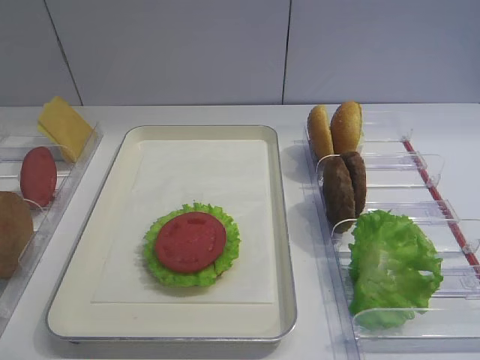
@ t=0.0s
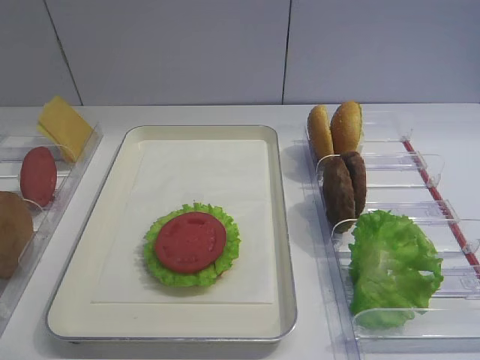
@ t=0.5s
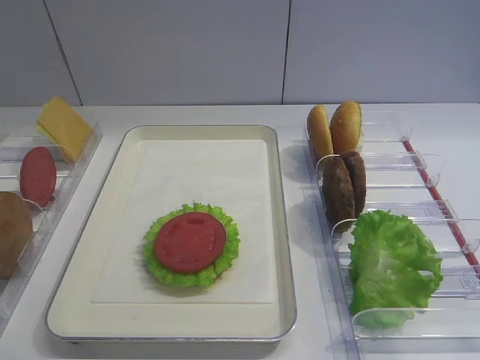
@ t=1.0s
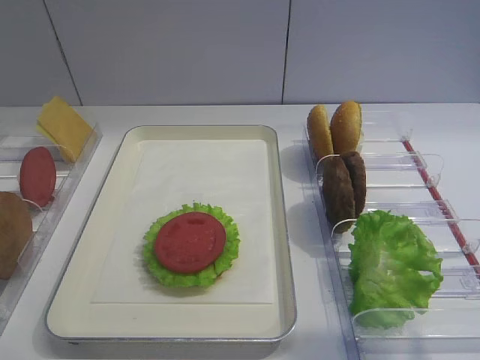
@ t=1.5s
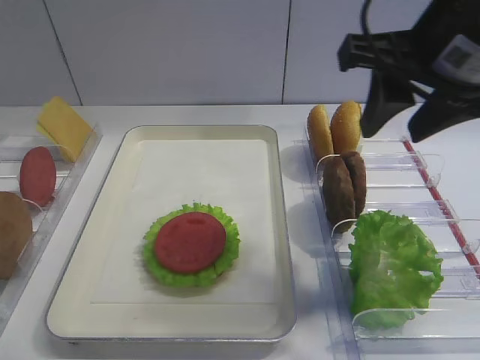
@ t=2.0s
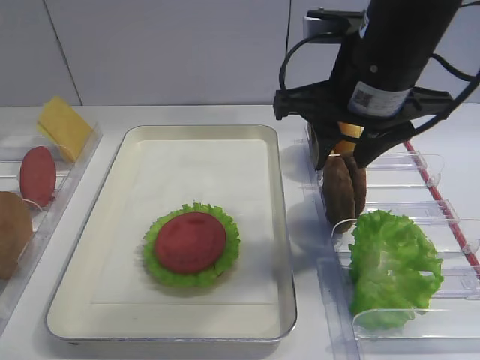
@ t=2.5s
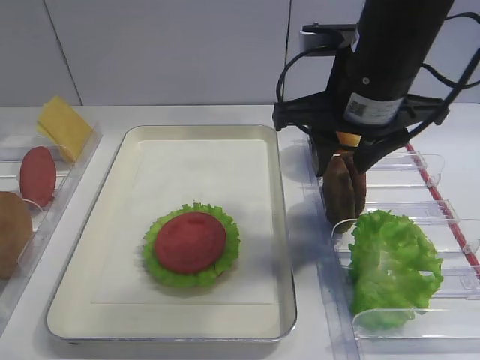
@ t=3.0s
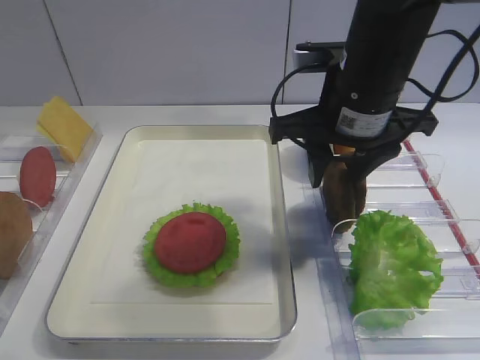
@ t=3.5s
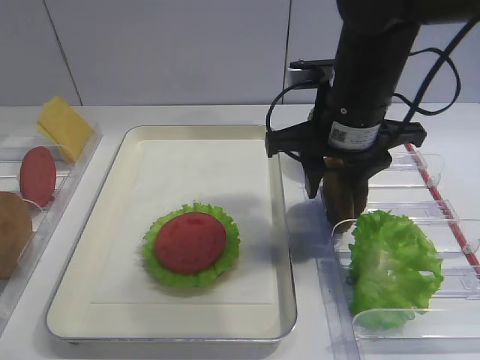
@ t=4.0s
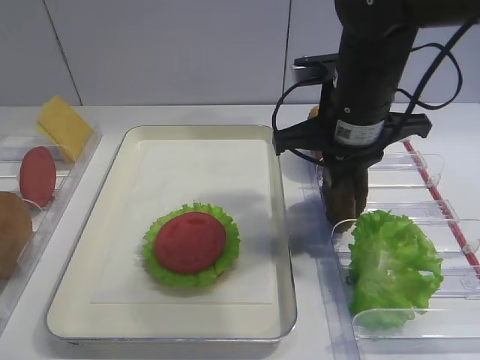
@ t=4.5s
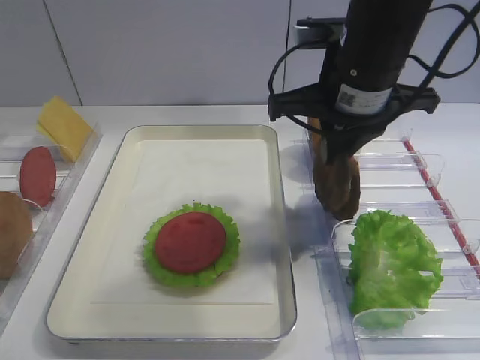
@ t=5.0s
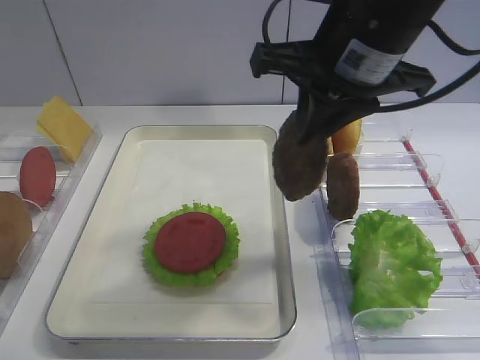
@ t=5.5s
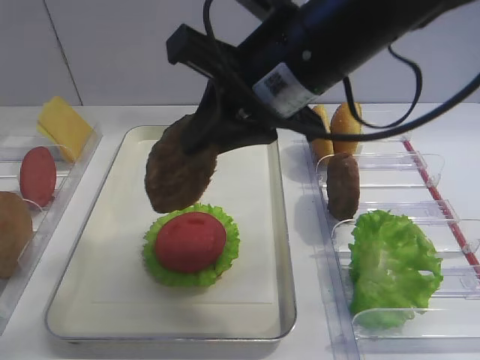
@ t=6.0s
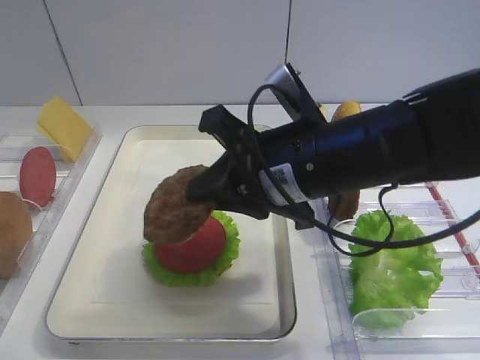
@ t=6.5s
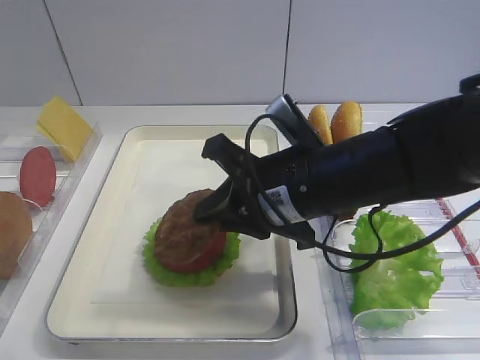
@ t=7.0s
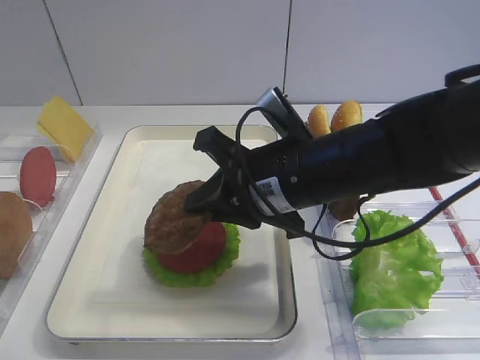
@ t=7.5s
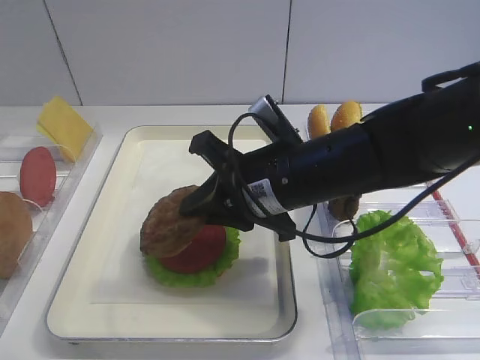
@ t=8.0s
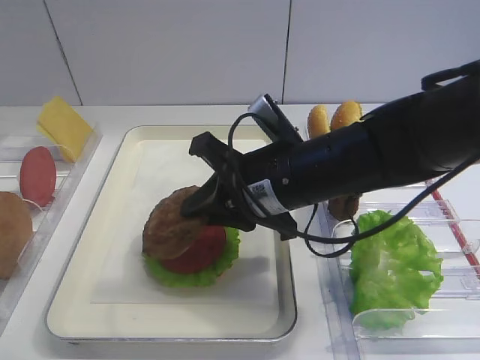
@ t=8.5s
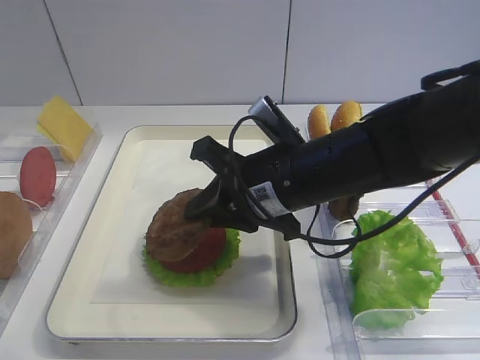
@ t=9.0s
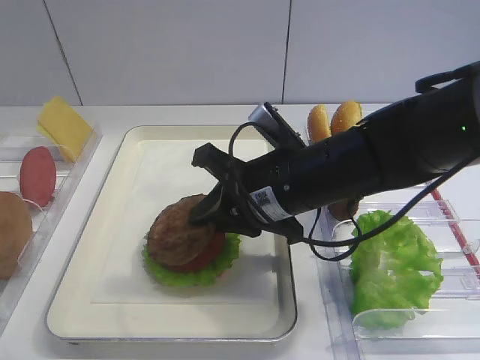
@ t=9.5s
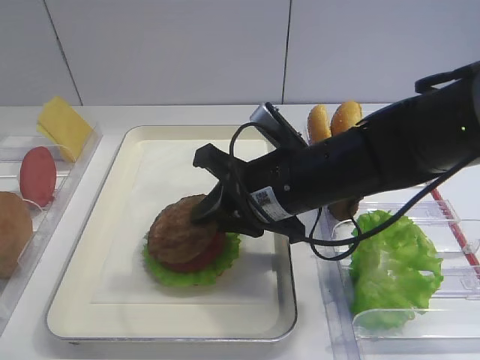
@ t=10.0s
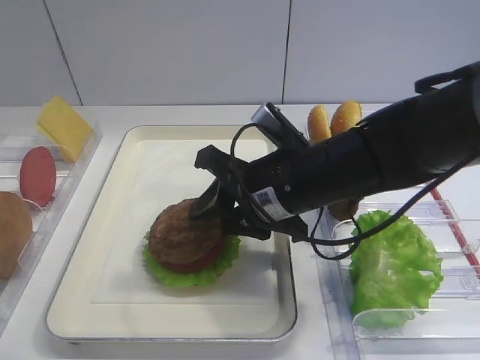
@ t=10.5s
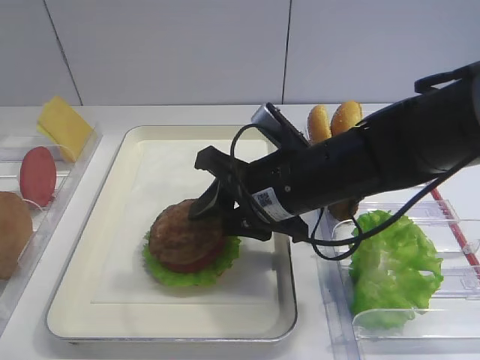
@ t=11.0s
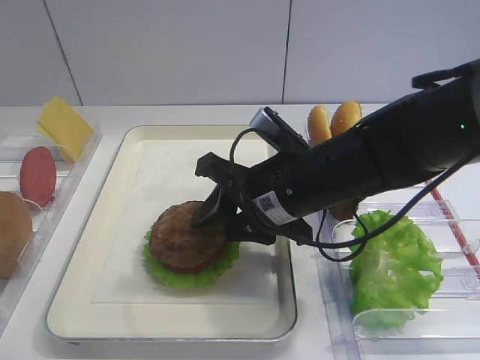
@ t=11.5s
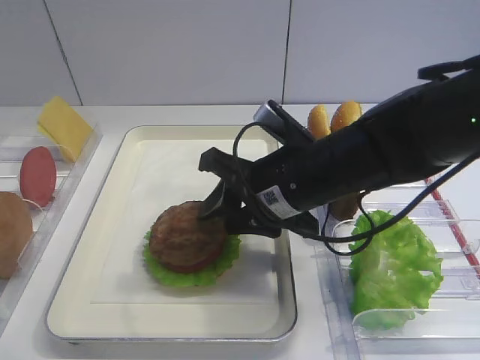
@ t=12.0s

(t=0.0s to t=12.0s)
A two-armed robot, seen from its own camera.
Step, t=0.0s - t=4.5s: Pick up the cutlet with the right gripper.
t=2.0s - t=4.0s: The right gripper travels downward, forward and to the left by about 15 cm.
t=4.0s - t=6.0s: The right gripper goes some 5 cm upward, and closes.
t=6.0s - t=8.0s: The right gripper goes approximately 15 cm downward.
t=8.0s - t=10.0s: The two grippers keep their place.
t=10.0s - t=12.0s: The right gripper opens.

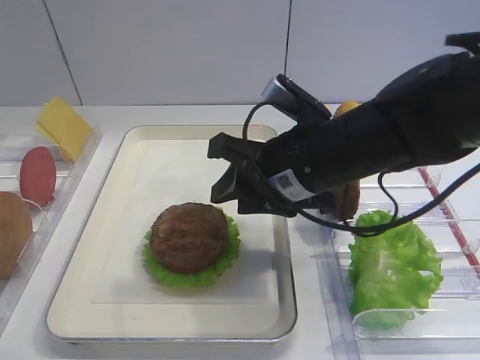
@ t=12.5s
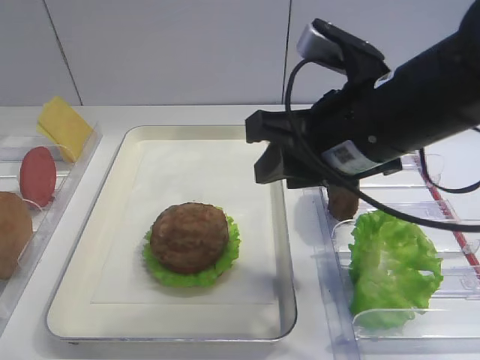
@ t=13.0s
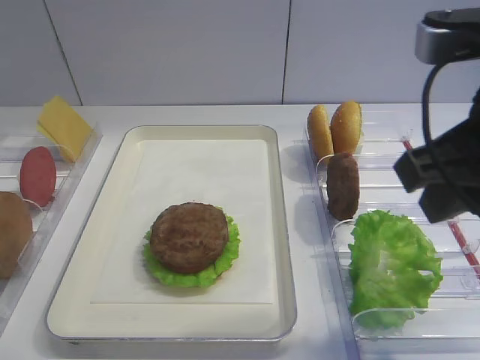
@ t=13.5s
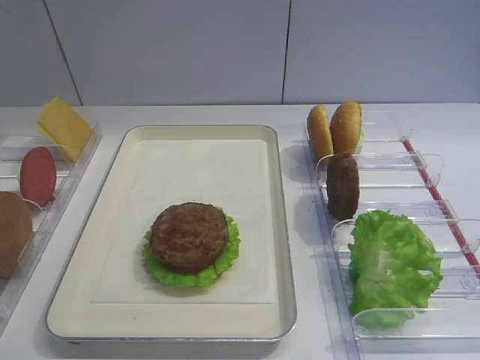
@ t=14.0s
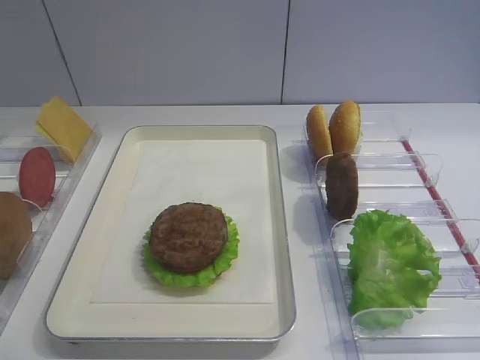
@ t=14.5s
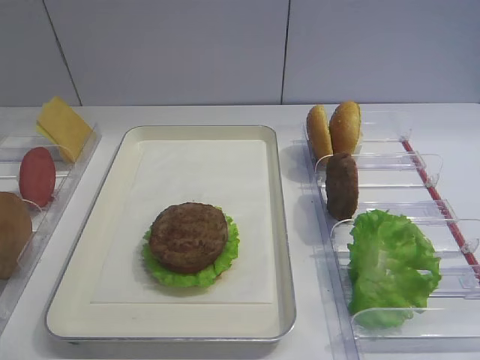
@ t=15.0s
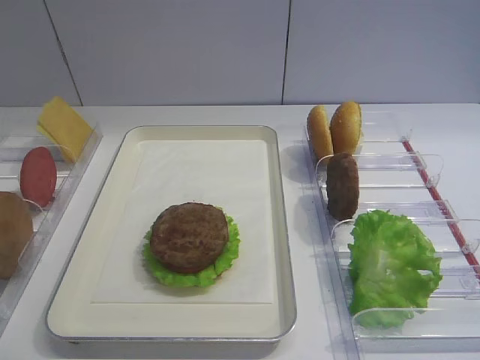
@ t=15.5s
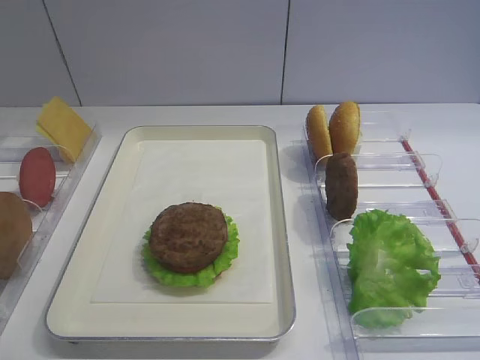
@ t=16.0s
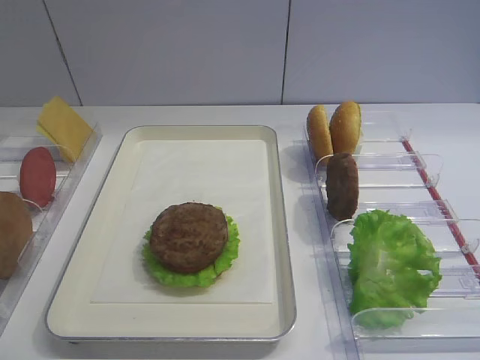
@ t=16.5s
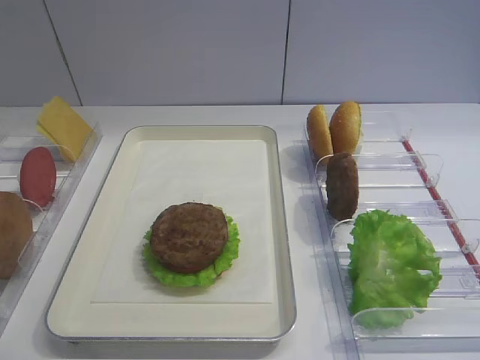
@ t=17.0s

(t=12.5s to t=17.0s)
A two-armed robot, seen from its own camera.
t=12.5s - t=14.5s: The right gripper travels backward, to the right and upward by roughly 35 cm.

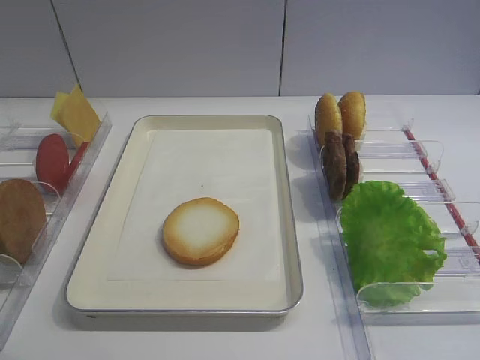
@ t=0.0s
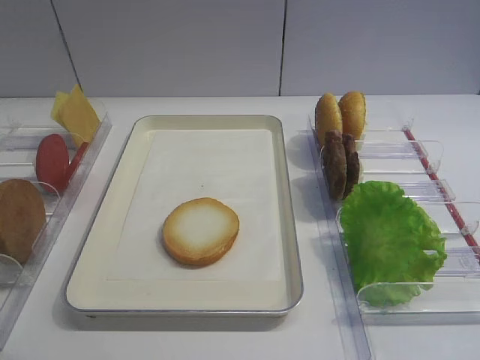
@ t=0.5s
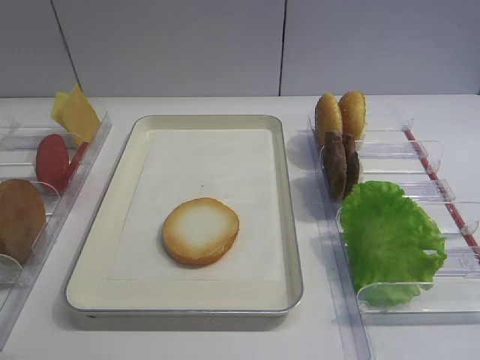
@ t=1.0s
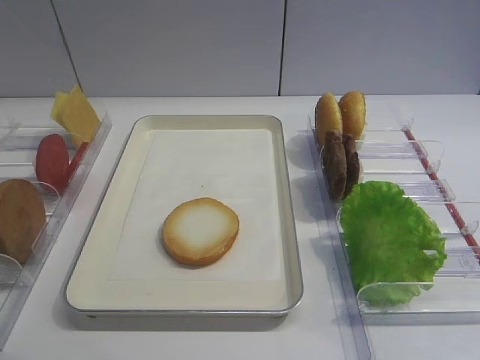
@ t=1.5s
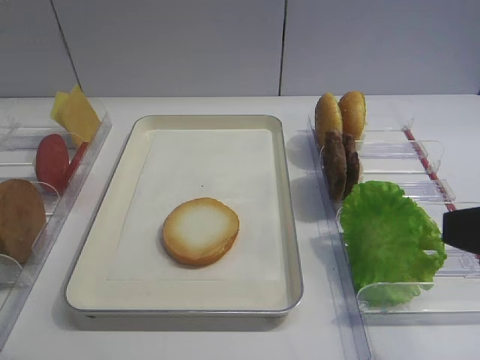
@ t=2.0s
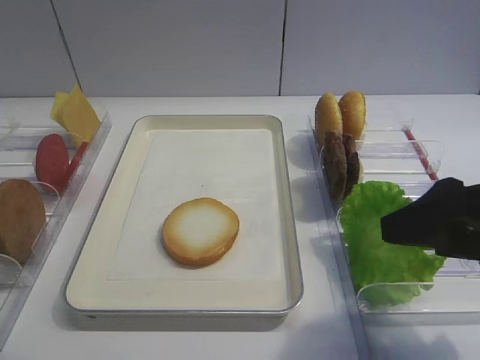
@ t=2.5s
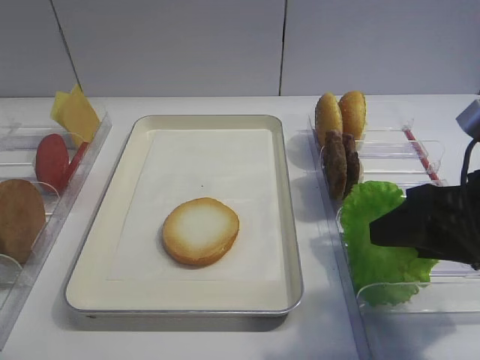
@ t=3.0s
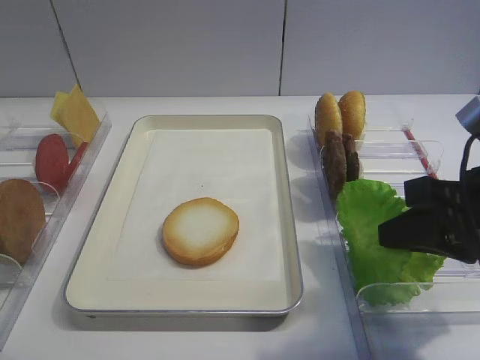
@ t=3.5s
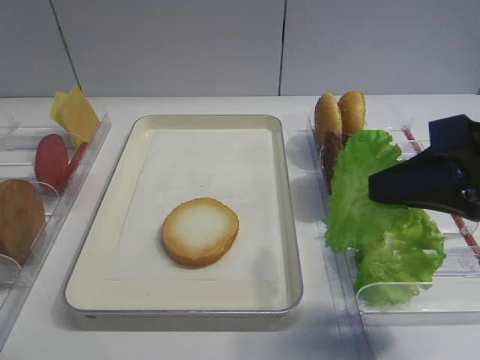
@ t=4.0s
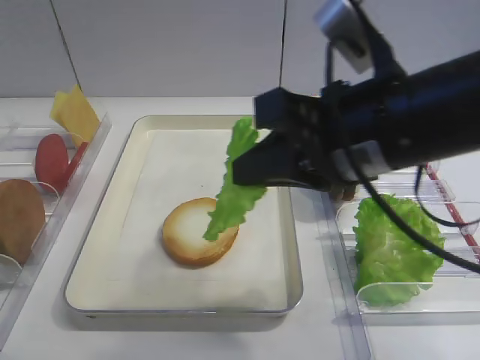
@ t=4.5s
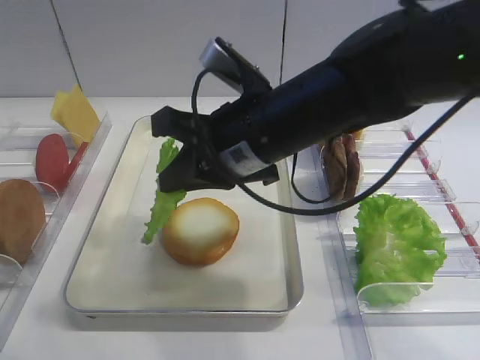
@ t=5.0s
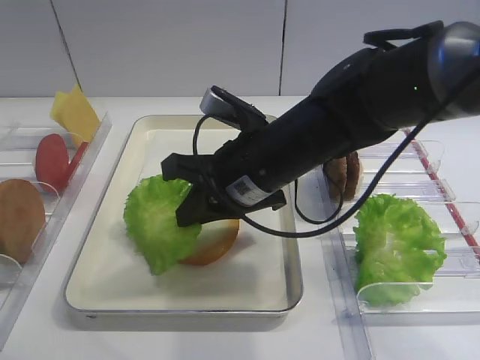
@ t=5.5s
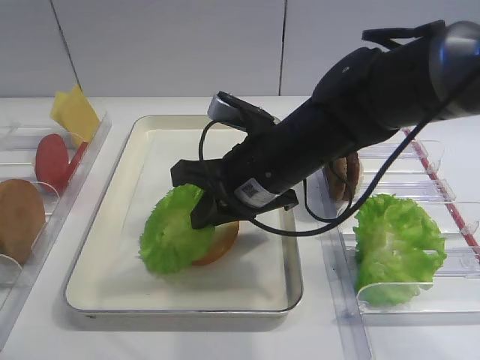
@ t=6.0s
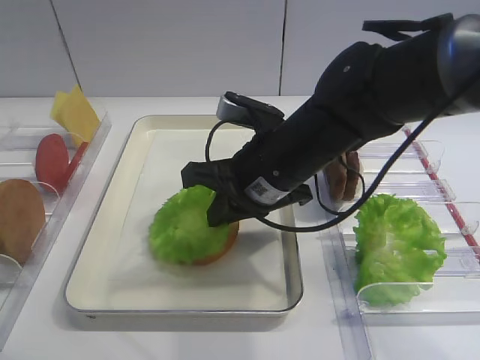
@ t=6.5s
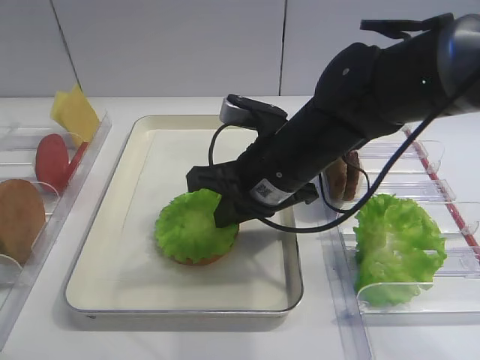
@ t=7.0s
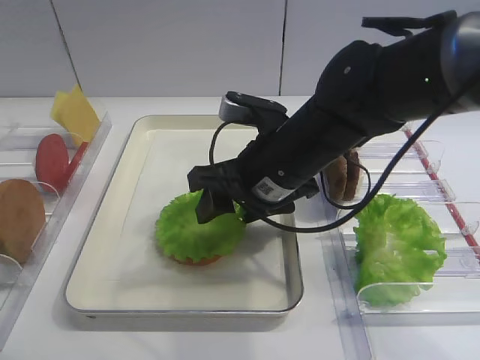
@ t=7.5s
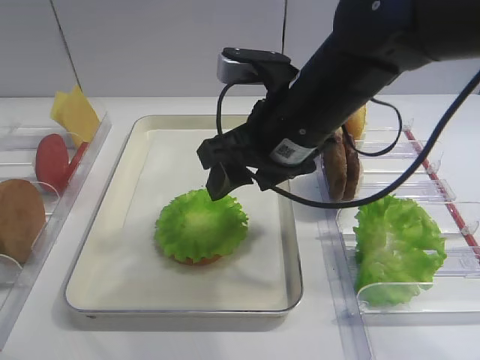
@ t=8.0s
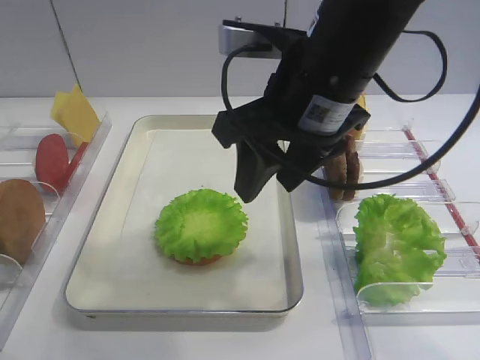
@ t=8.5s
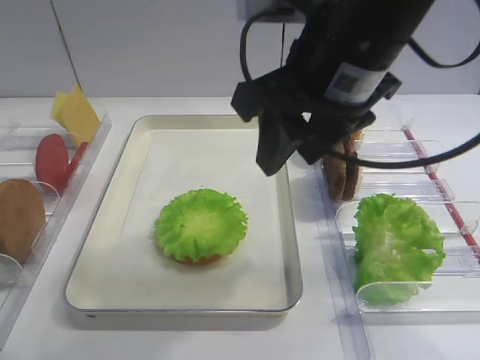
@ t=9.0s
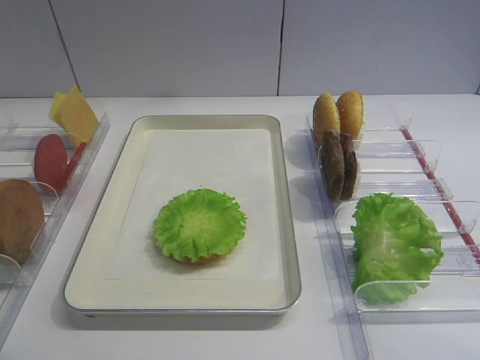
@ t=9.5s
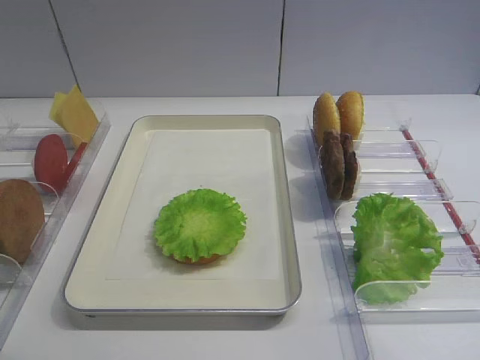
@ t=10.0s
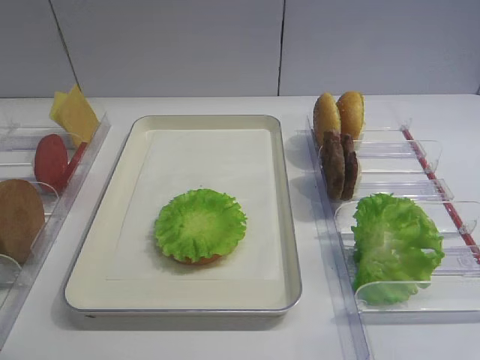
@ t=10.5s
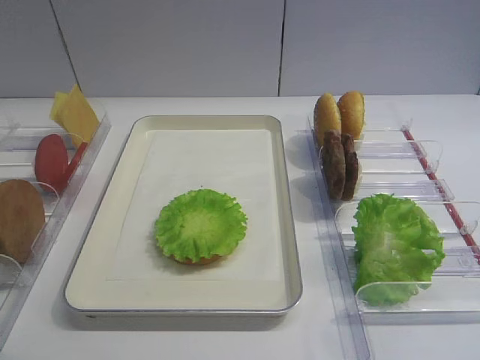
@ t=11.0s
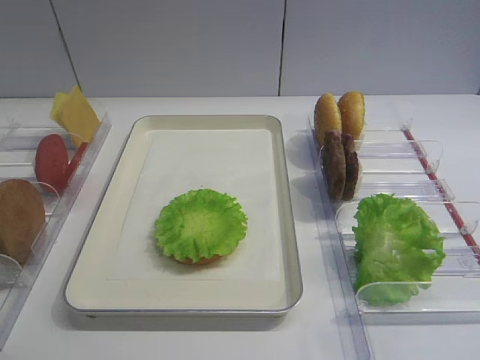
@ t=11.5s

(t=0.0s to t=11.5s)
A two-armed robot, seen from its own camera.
Step, t=0.0s - t=3.5s: Pick up the lettuce leaf with the right gripper.
Step, t=4.0s - t=8.0s: Place the lettuce leaf on the bread slice with the right gripper.
t=2.0s - t=4.0s: The right gripper shifts roughly 10 cm forward, and closes up.
t=4.0s - t=6.0s: The right gripper shifts some 20 cm to the left, forward and downward.
t=6.0s - t=7.5s: The right gripper opens.
t=7.5s - t=9.5s: The right gripper shifts approximately 35 cm upward, backward and to the right.
t=9.5s - t=11.5s: The right gripper shifts approximately 25 cm downward and backward.
